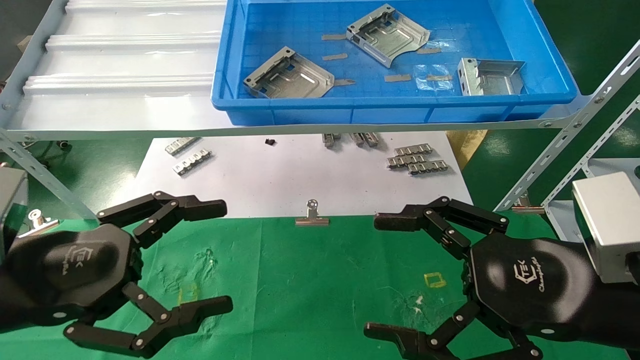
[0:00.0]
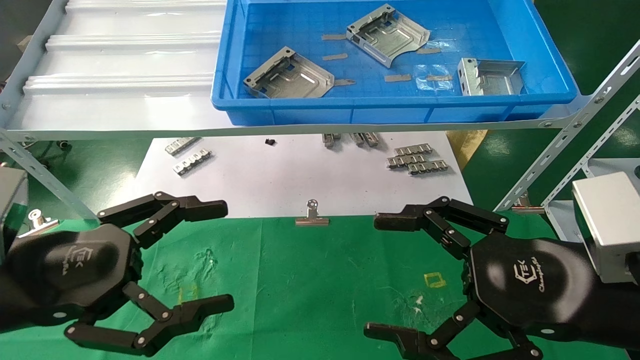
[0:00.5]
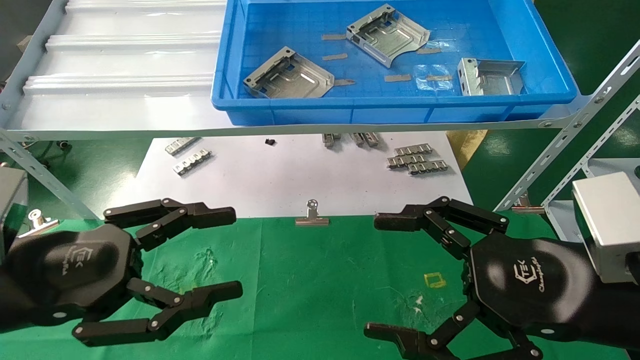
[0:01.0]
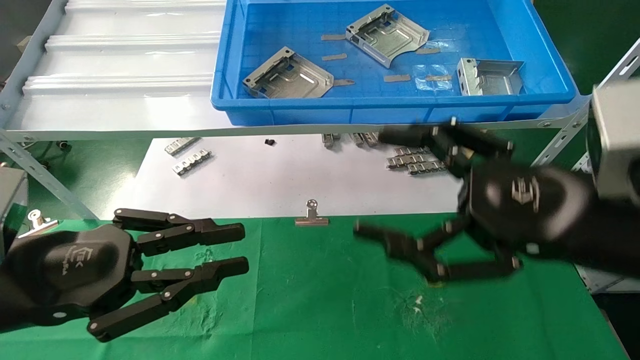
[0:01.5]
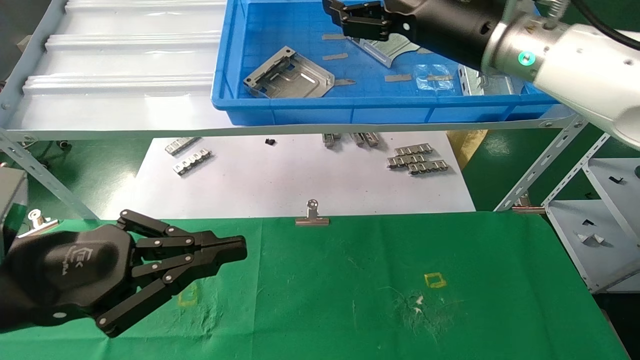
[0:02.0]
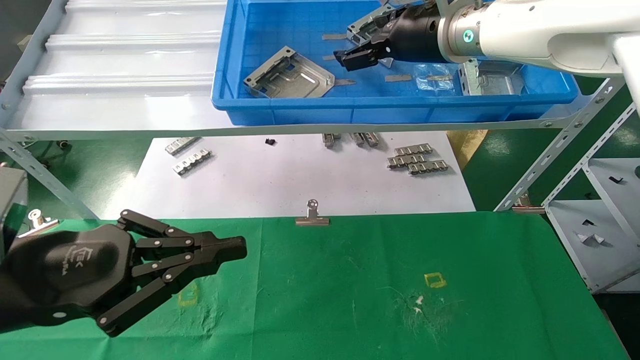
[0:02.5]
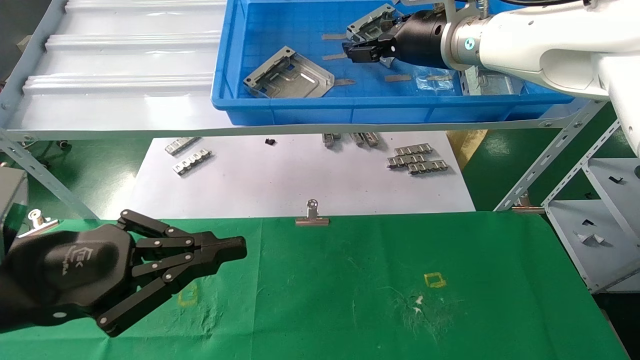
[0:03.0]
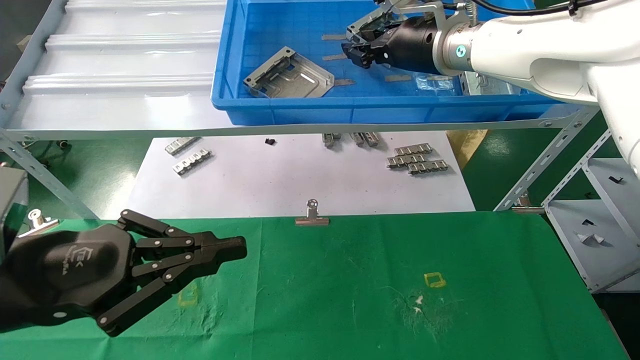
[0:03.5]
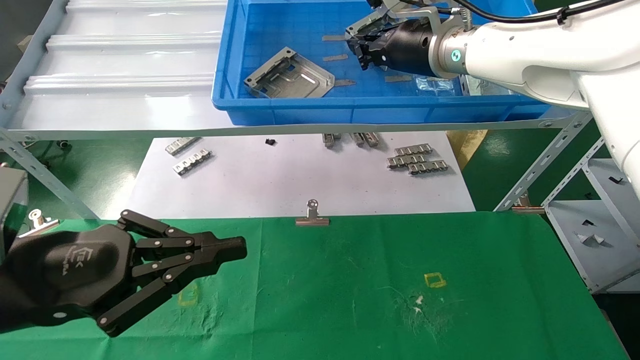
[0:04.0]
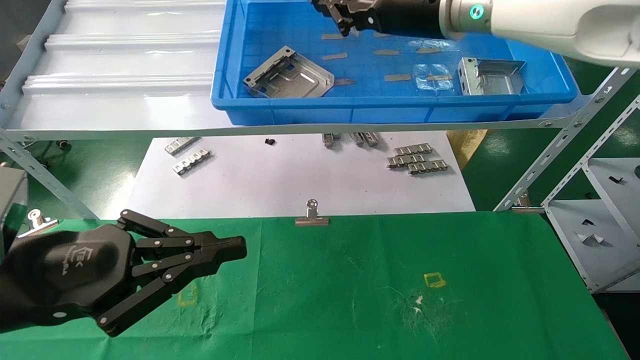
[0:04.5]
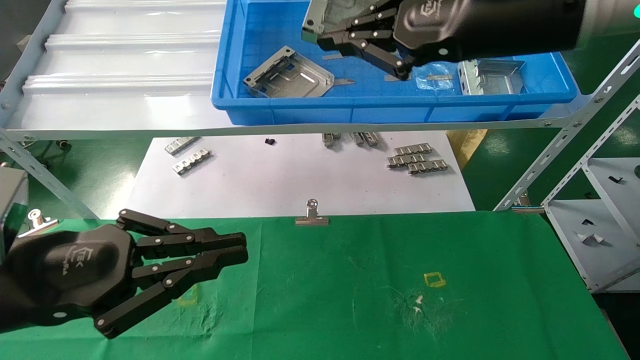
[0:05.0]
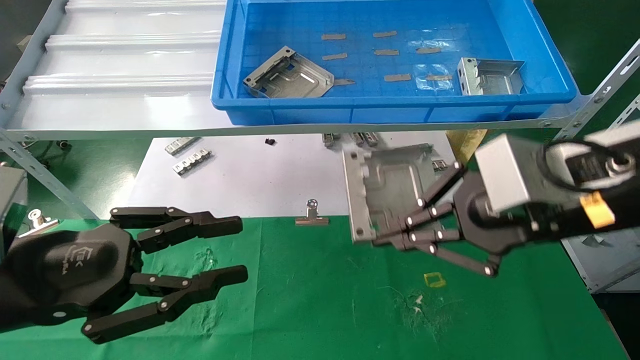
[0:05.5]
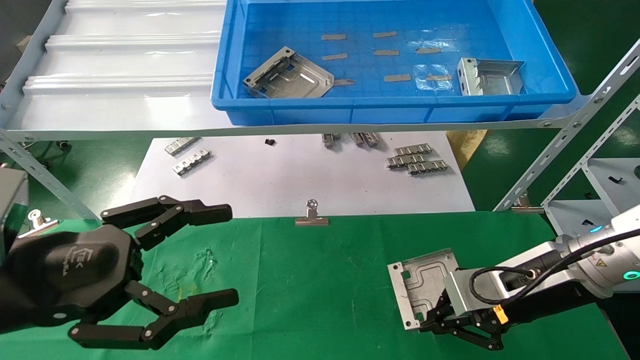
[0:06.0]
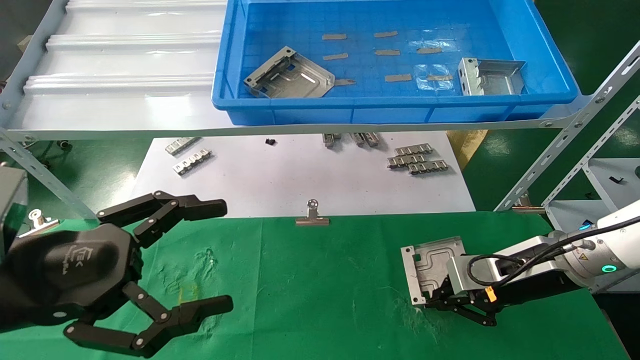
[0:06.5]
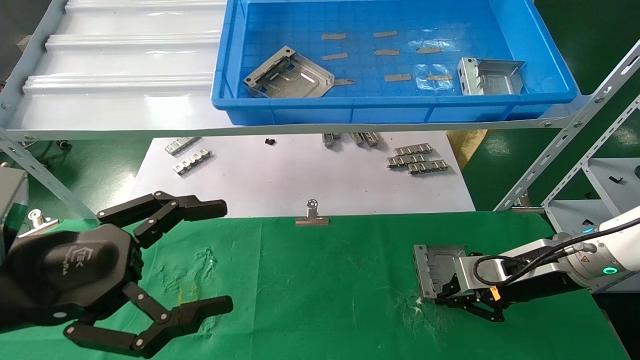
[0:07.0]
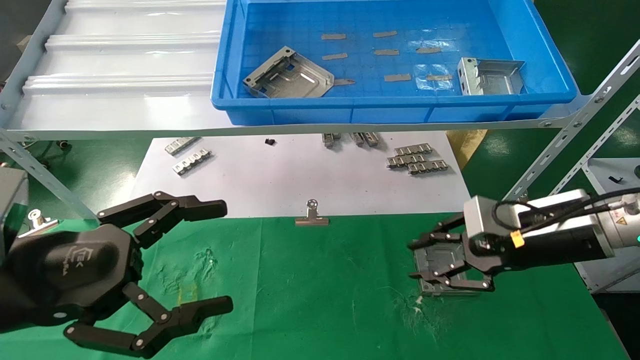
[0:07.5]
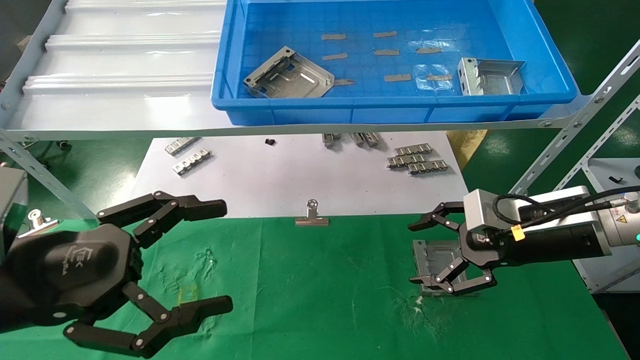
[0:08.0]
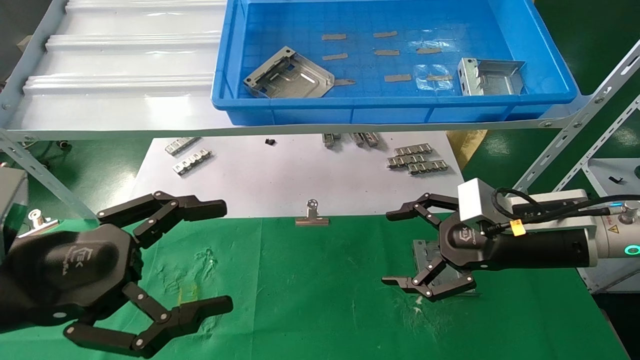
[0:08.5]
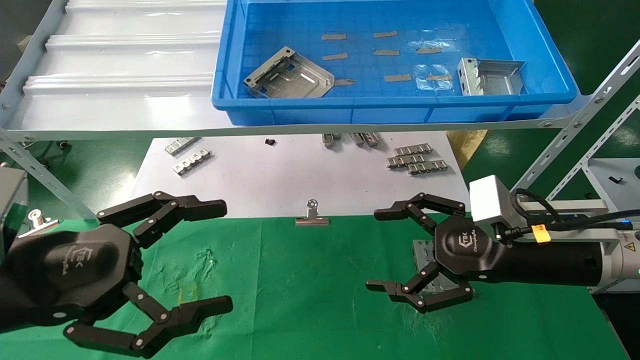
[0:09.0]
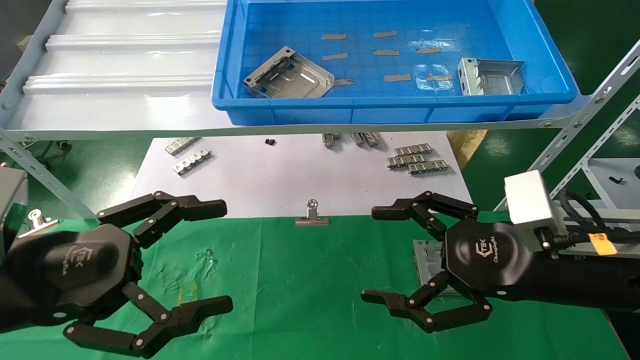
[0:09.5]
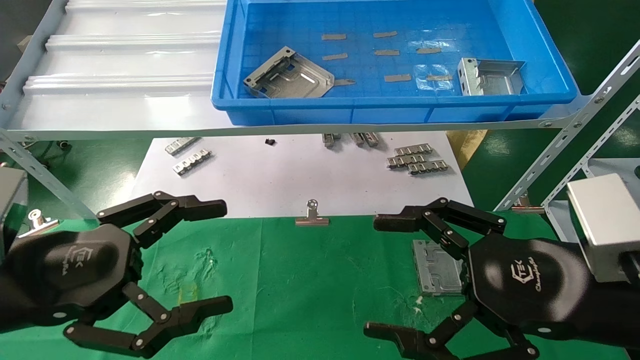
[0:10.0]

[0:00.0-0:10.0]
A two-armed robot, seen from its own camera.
Task of the whole recording: use the mechanical arm to pick up the parts and place them on the table.
Step, 0:02.0 to 0:04.0: Pick up the hard drive bracket from the feeding area.
Step, 0:04.5 to 0:07.0: Place the hard drive bracket into the box.
0:00.0 to 0:02.0: The left gripper closes its fingers. The right gripper is displaced forward and upward by about 25 cm.
0:02.0 to 0:04.0: The right gripper travels forward by some 10 cm, and closes up.
0:04.0 to 0:06.0: The left gripper opens its fingers, while the right gripper shifts roughly 30 cm downward, backward and to the right.
0:06.0 to 0:08.0: The right gripper opens its fingers.
0:08.0 to 0:10.0: The right gripper travels backward by roughly 15 cm.
